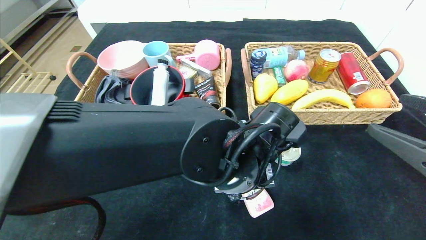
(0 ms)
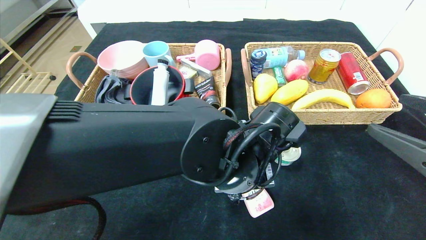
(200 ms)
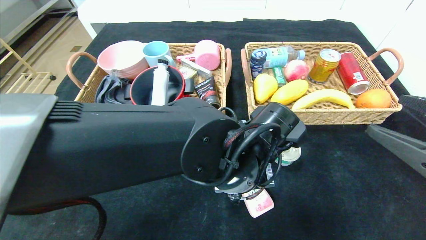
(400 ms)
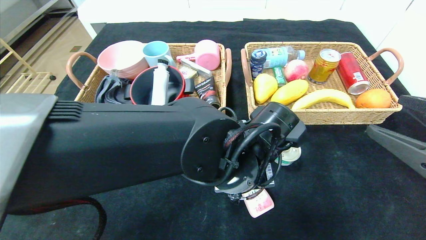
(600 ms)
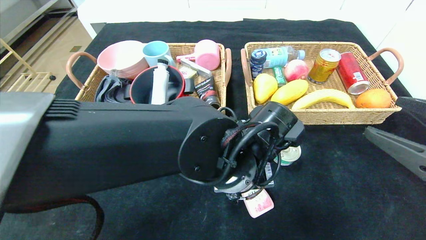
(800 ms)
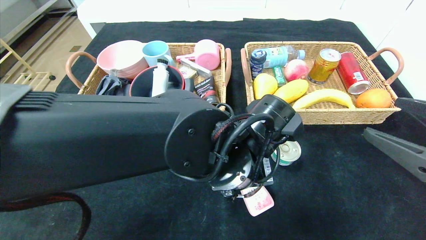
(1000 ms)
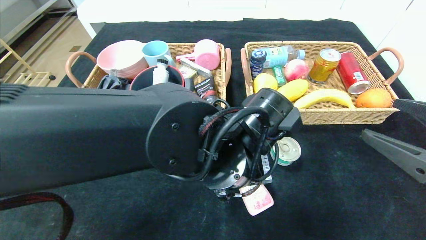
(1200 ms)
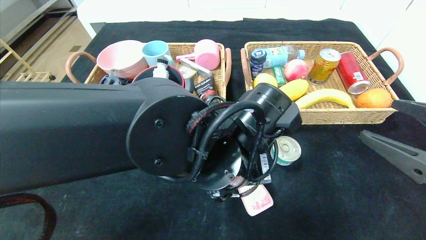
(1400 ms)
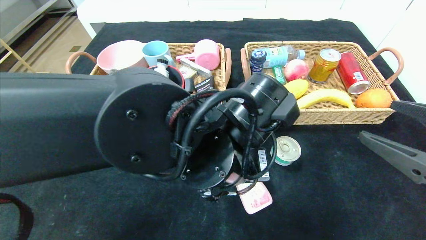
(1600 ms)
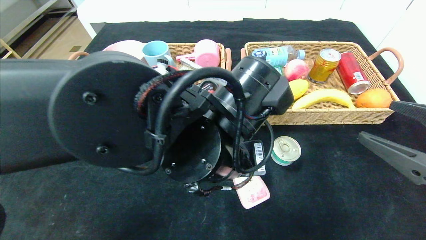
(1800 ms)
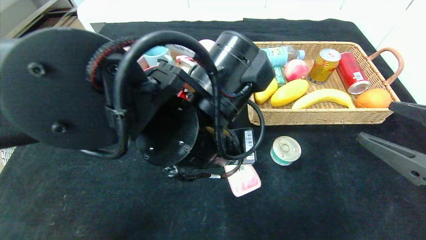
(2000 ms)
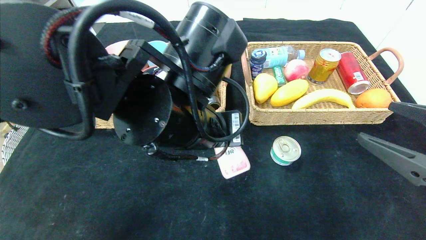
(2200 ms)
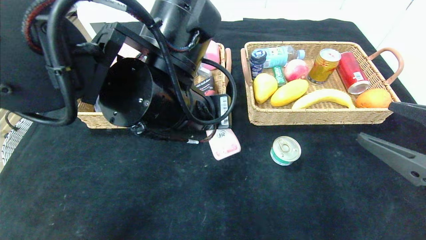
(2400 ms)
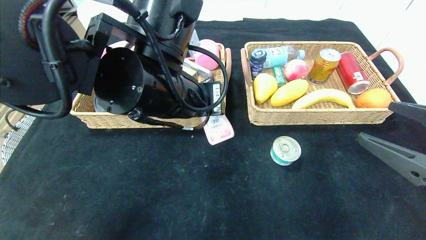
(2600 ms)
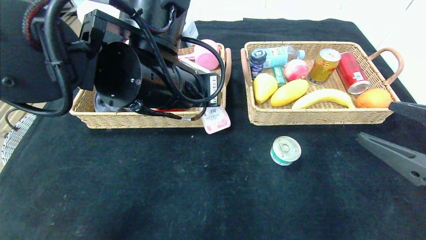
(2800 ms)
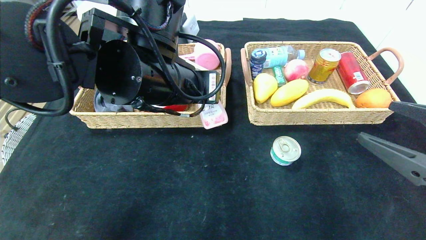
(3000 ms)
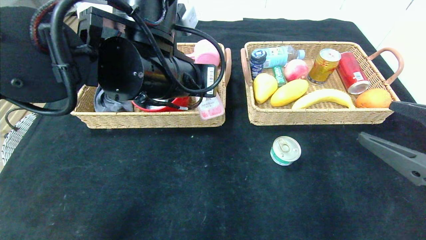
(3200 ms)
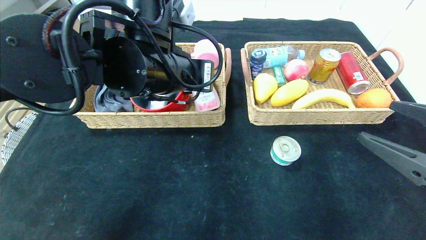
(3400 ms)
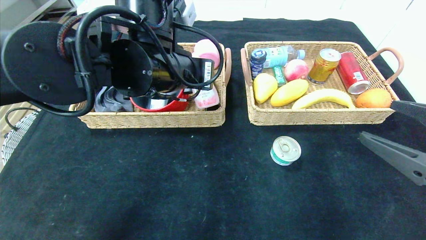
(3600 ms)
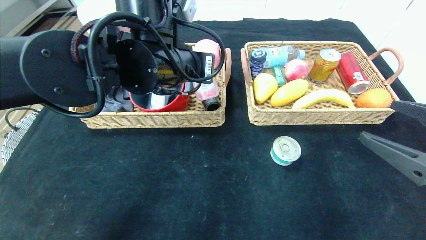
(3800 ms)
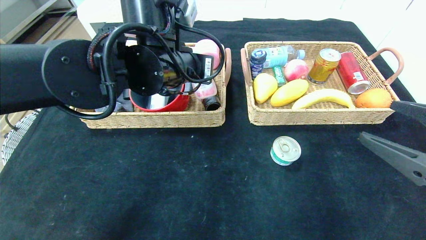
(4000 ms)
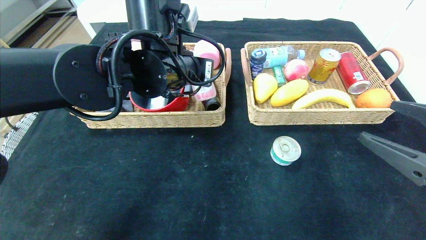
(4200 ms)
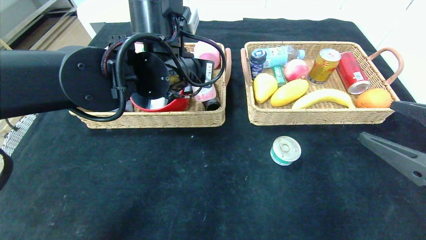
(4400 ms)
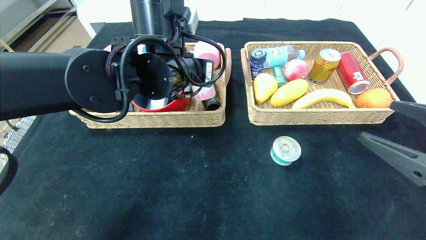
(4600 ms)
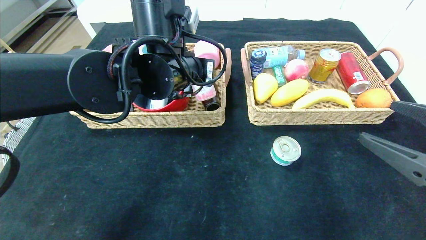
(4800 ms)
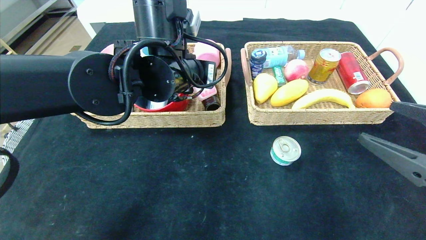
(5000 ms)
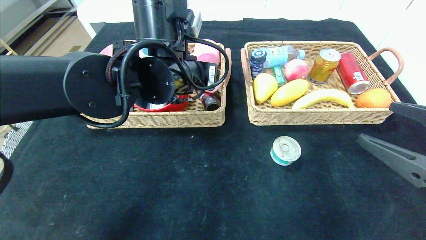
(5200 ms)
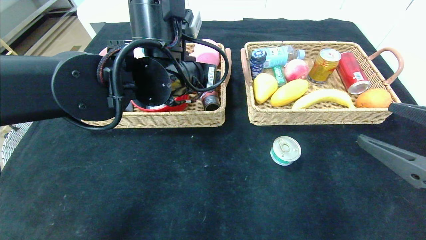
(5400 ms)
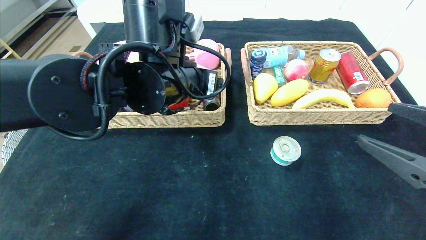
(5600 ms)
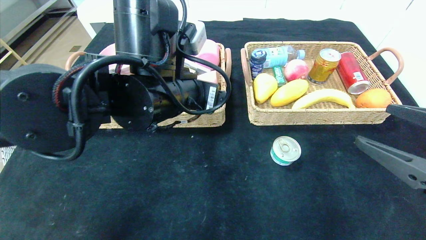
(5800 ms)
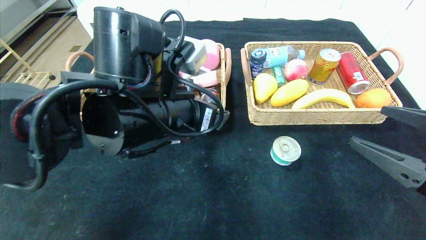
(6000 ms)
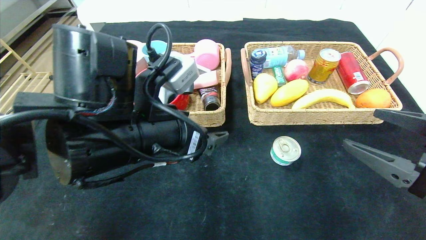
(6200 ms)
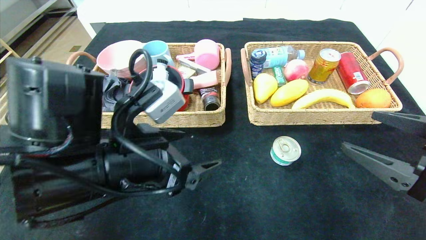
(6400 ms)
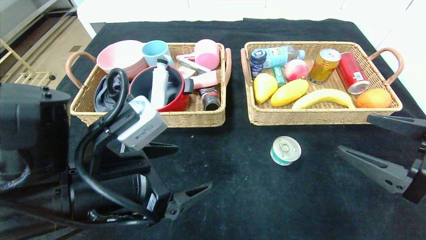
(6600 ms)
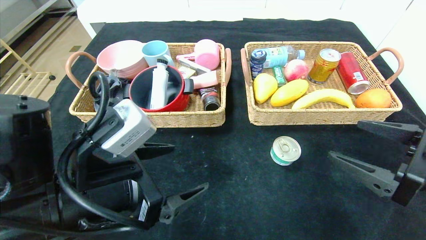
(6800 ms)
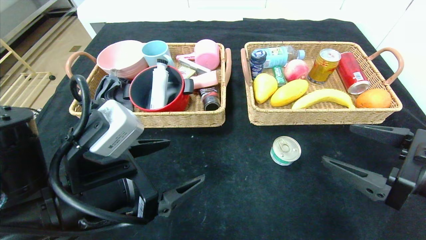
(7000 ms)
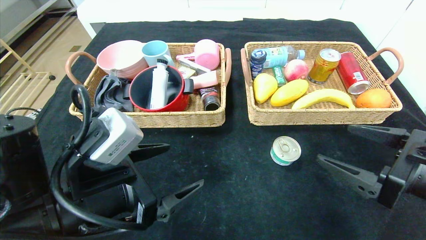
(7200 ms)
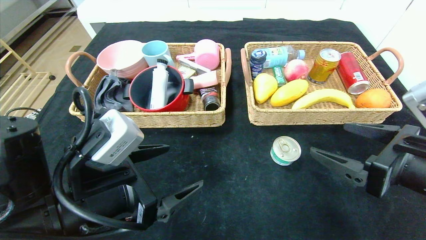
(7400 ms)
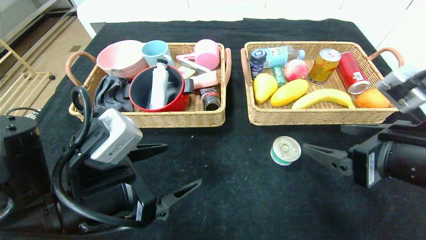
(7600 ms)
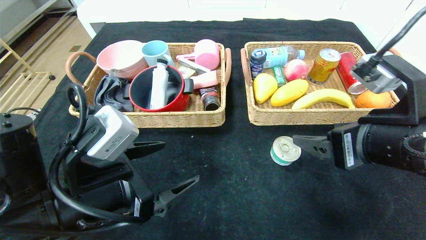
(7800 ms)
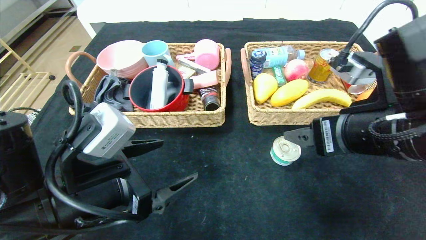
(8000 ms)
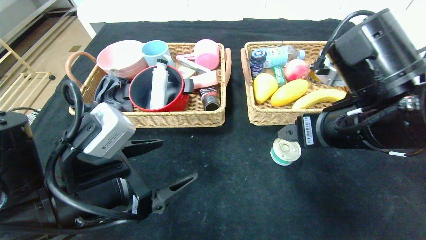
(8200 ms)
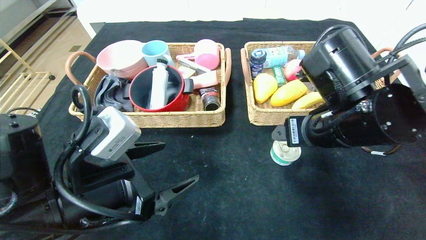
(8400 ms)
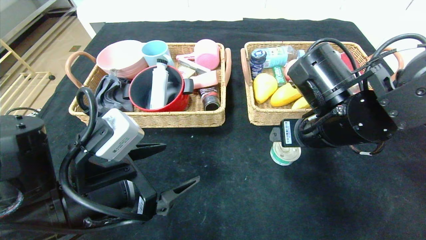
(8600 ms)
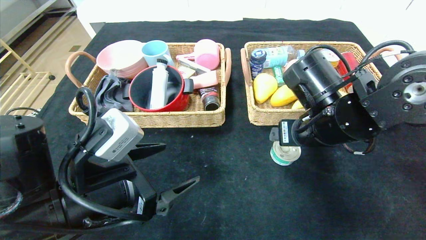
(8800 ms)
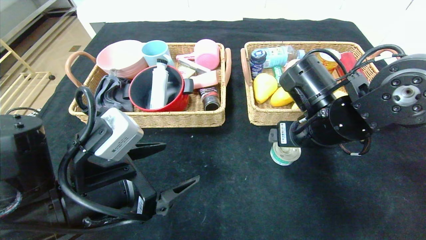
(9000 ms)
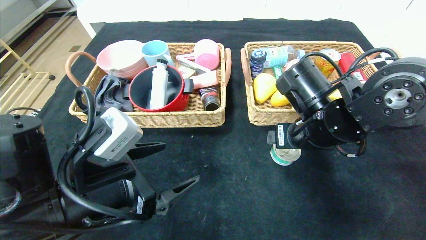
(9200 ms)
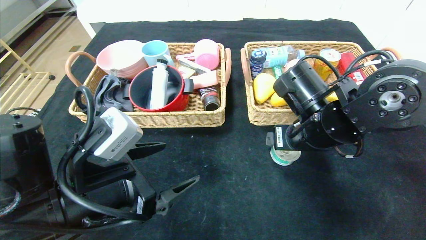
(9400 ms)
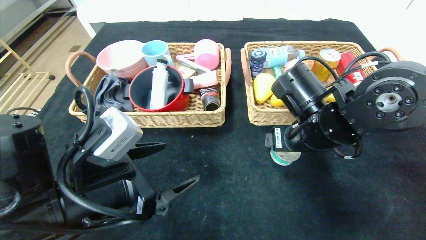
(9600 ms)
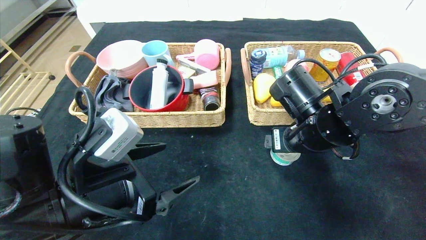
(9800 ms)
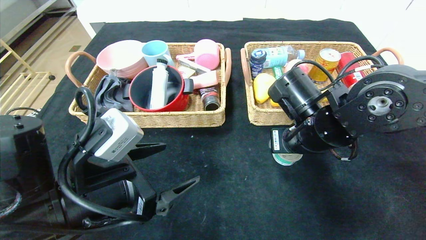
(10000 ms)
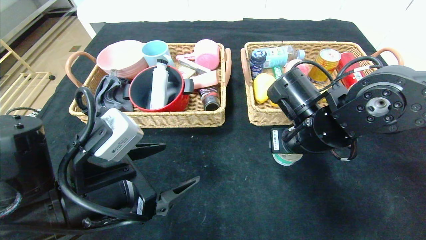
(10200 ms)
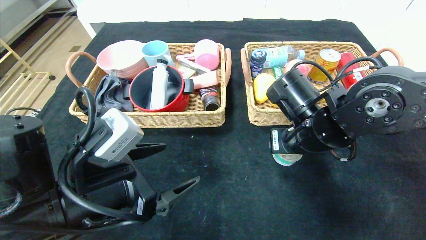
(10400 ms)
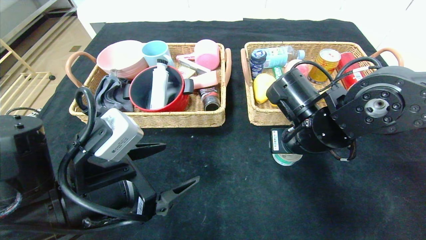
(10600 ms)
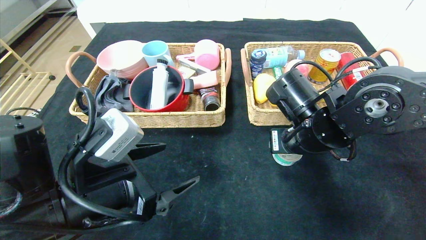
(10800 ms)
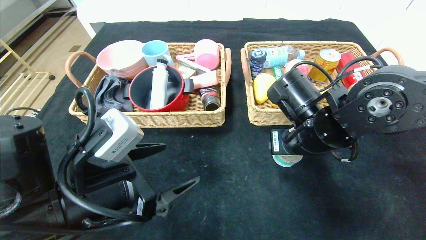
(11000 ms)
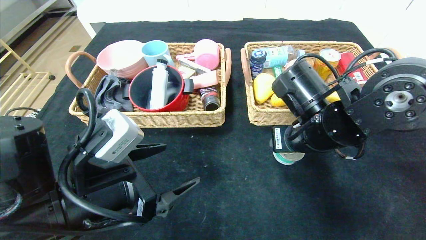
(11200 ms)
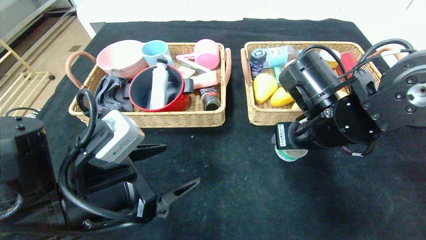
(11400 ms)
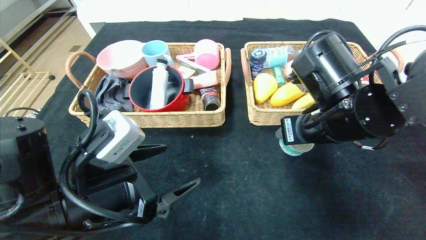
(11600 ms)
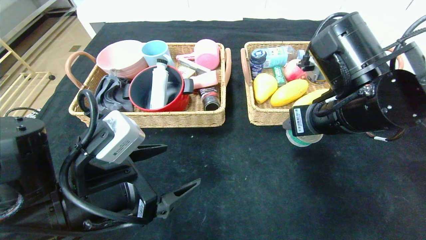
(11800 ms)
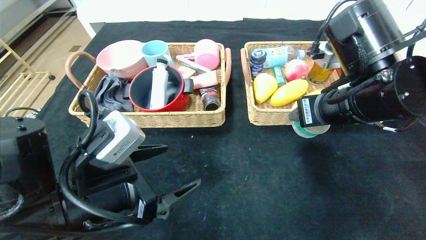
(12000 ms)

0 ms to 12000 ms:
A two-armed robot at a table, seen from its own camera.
Step, 0 ms to 5200 ms: Grasp the detergent and put it in the left basket.
0 ms to 1600 ms: The left gripper ends up about 5 cm from where it was.
1600 ms to 3000 ms: The left gripper heads upward, to the left and forward, covering about 10 cm.
3000 ms to 4400 ms: The left gripper travels forward by about 5 cm.
4400 ms to 6000 ms: The left gripper travels backward by about 10 cm, and opens.
6000 ms to 7600 ms: The right gripper shifts approximately 5 cm to the left; the left gripper heads to the left, backward and downward, covering some 15 cm.
7600 ms to 9000 ms: The right gripper goes approximately 15 cm forward and to the left.
9000 ms to 10400 ms: The right gripper closes its fingers.
10400 ms to 12000 ms: The right gripper travels upward by approximately 10 cm.

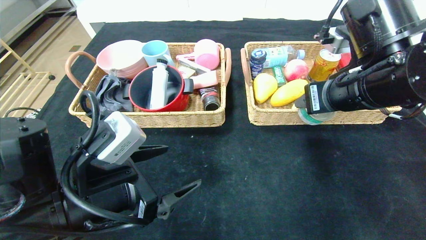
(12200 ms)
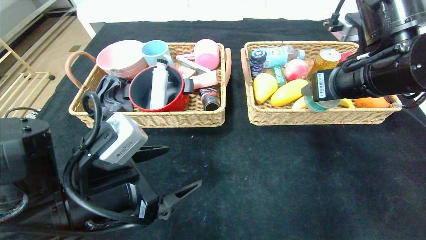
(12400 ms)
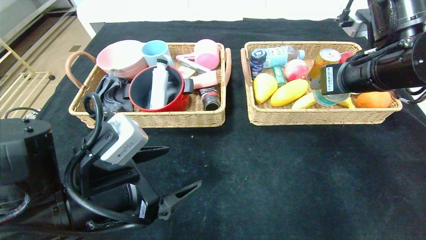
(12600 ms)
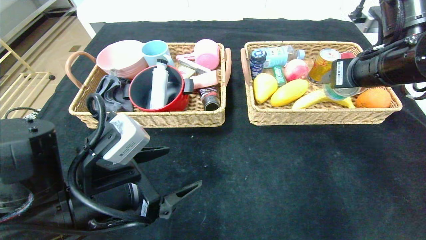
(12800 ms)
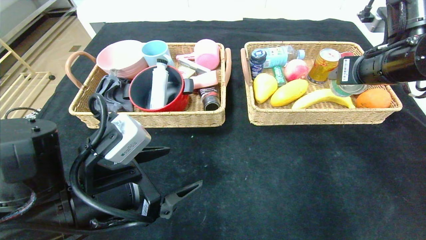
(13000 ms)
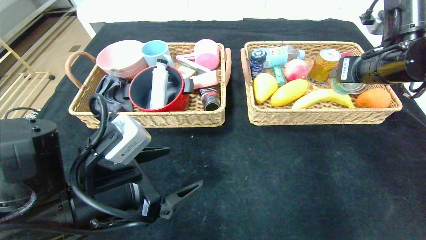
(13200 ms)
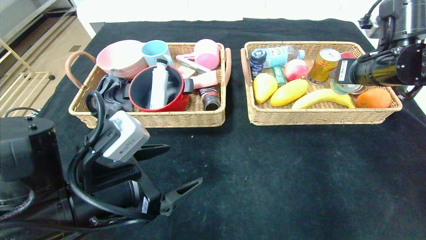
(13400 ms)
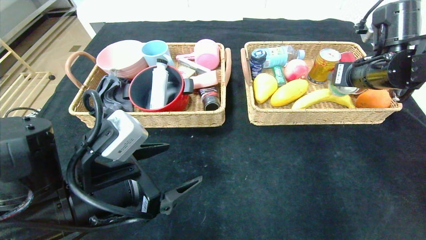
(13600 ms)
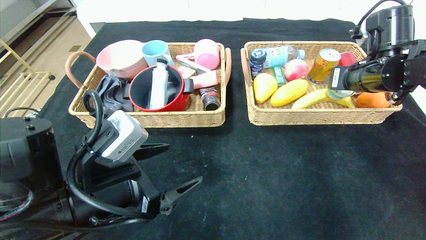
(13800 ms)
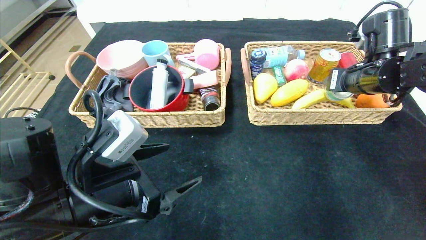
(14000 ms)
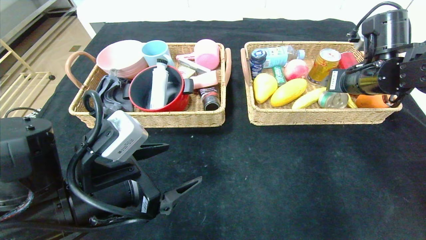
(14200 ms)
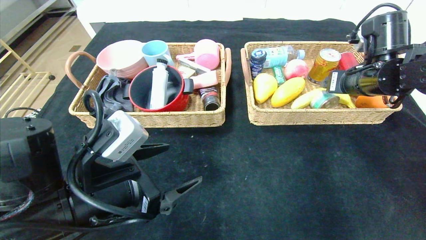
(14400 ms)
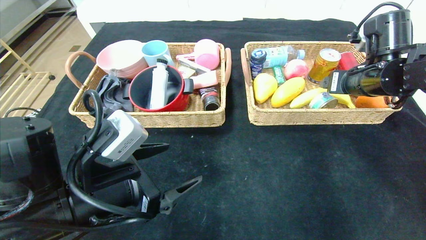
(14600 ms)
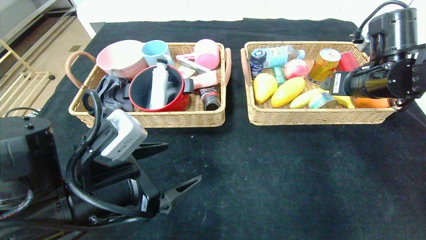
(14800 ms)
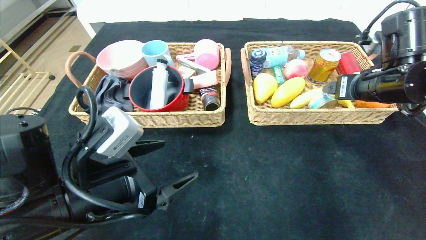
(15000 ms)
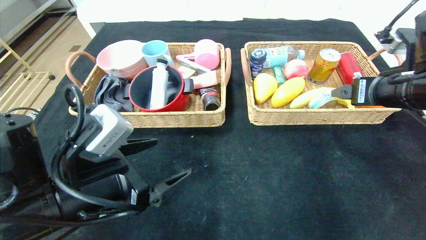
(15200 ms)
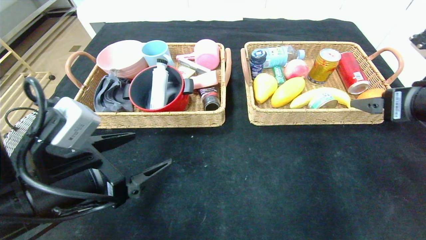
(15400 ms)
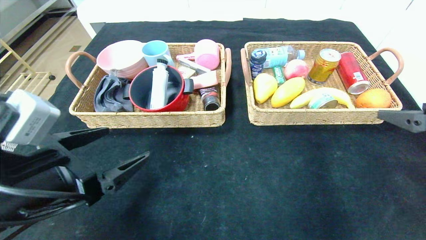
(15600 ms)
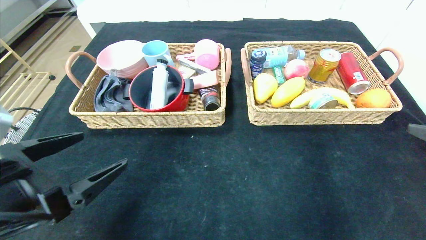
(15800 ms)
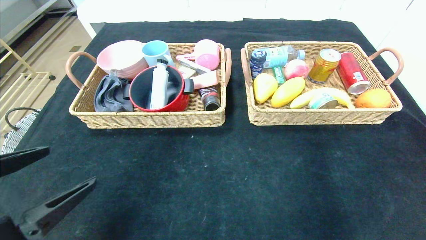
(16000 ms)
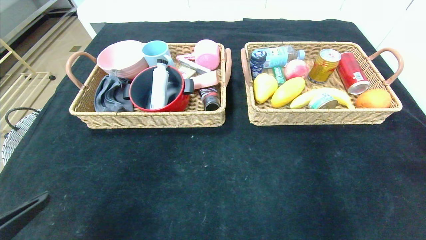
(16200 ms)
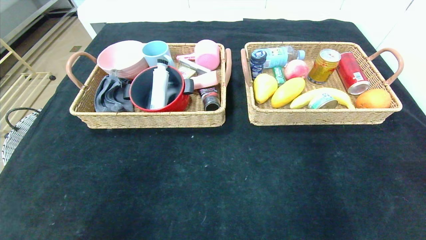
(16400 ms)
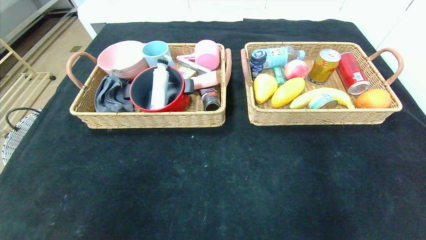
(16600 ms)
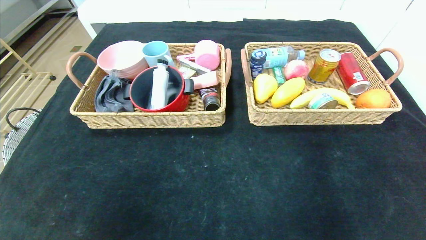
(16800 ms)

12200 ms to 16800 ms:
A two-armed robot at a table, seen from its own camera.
Step, 12200 ms to 14400 ms: Grasp the can and put it in the right basket.
12200 ms to 13800 ms: The right gripper heads forward and to the right, covering approximately 15 cm.
13800 ms to 15200 ms: The right gripper moves backward, roughly 10 cm, and opens up.
15200 ms to 16800 ms: The right gripper travels backward by some 35 cm. The left gripper goes roughly 25 cm backward and to the left.
